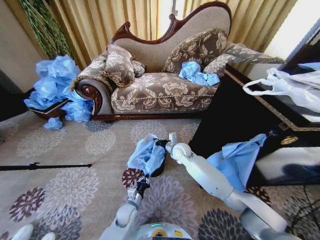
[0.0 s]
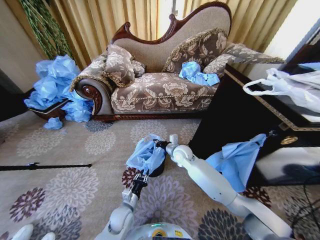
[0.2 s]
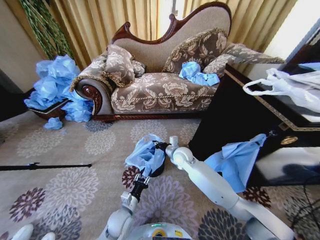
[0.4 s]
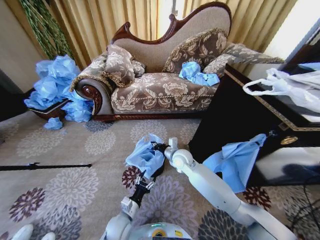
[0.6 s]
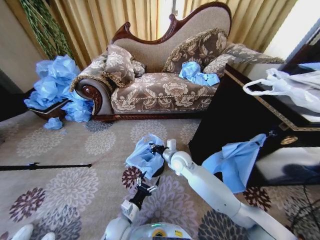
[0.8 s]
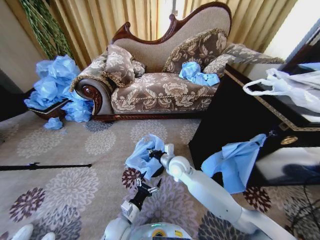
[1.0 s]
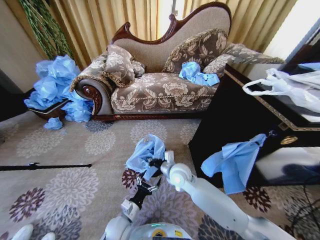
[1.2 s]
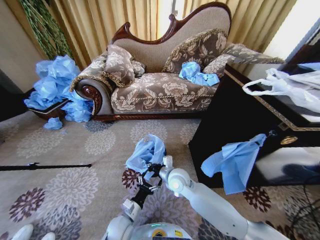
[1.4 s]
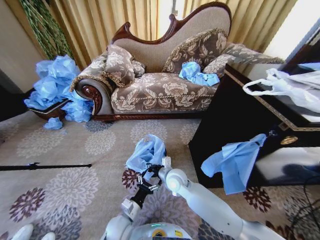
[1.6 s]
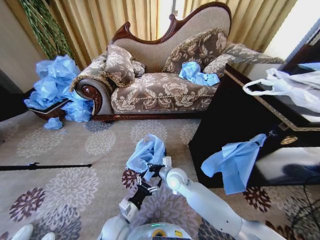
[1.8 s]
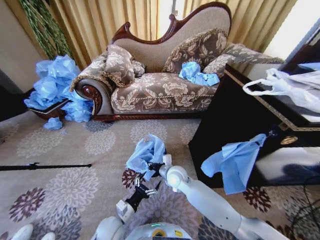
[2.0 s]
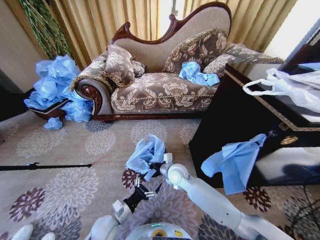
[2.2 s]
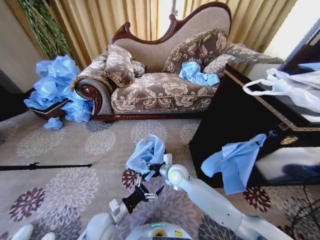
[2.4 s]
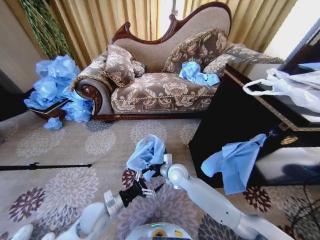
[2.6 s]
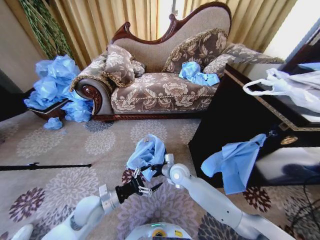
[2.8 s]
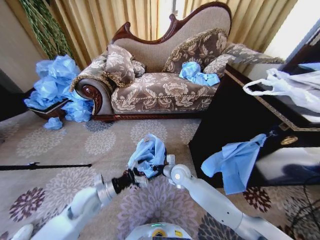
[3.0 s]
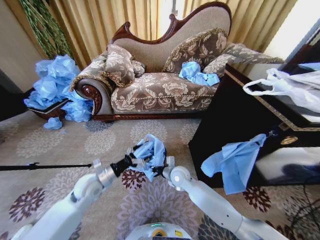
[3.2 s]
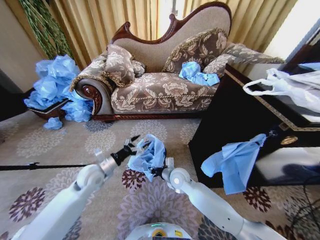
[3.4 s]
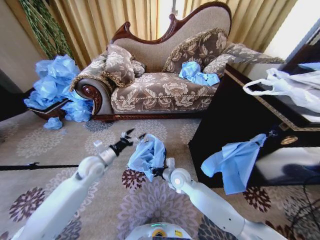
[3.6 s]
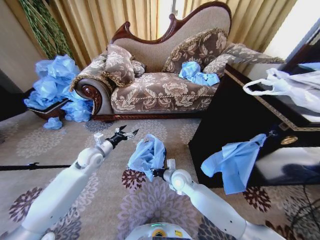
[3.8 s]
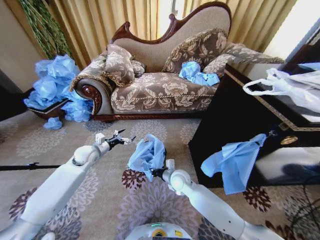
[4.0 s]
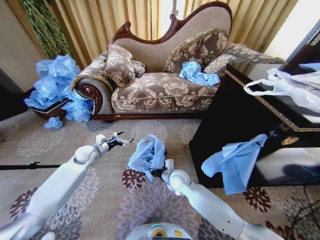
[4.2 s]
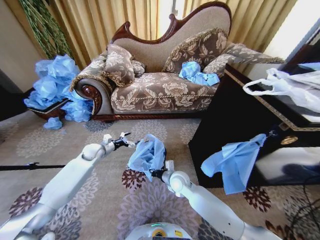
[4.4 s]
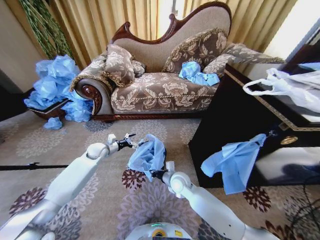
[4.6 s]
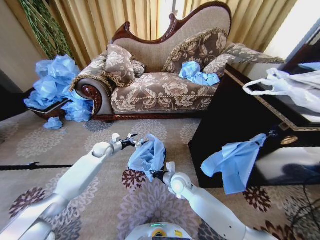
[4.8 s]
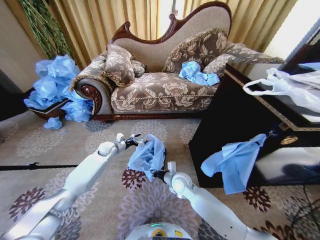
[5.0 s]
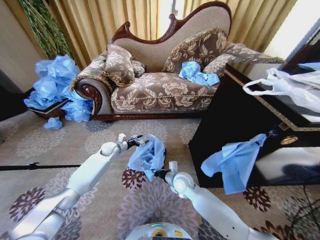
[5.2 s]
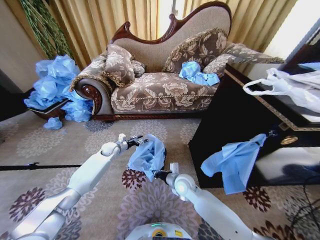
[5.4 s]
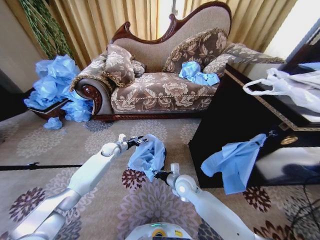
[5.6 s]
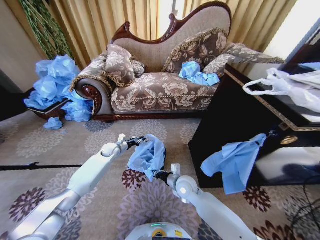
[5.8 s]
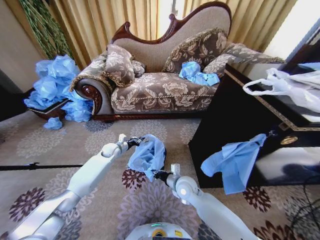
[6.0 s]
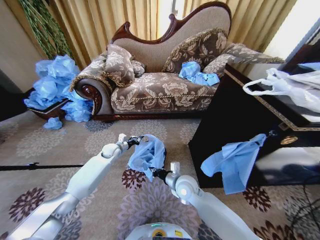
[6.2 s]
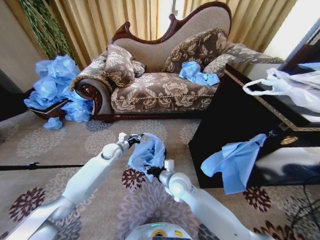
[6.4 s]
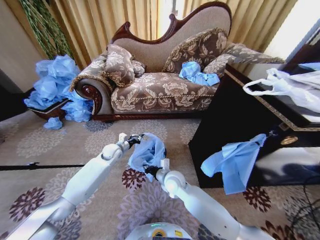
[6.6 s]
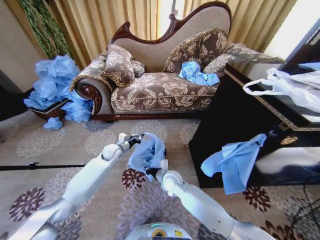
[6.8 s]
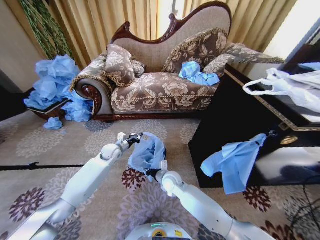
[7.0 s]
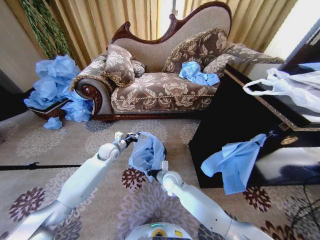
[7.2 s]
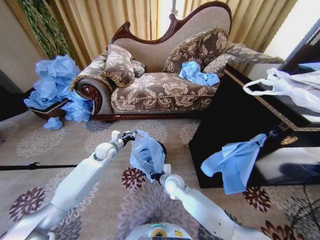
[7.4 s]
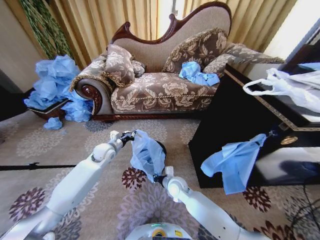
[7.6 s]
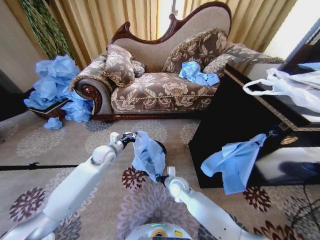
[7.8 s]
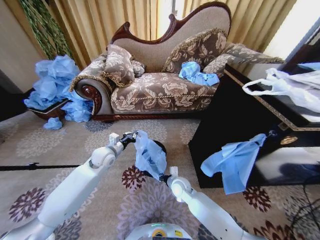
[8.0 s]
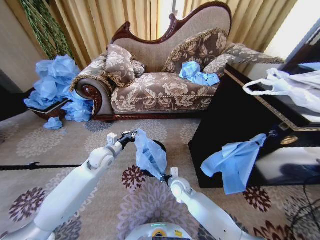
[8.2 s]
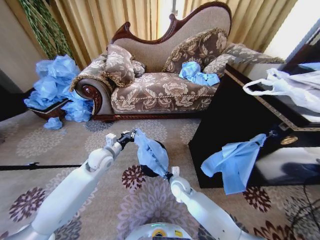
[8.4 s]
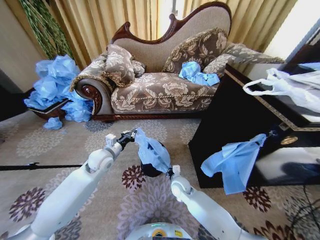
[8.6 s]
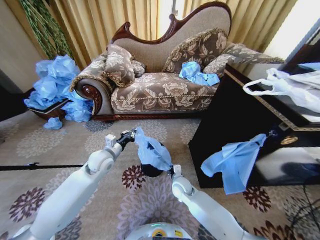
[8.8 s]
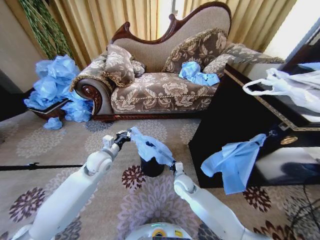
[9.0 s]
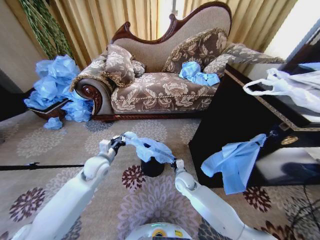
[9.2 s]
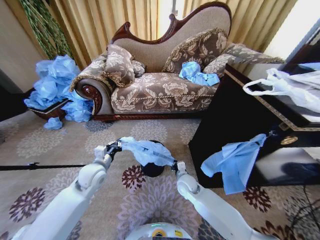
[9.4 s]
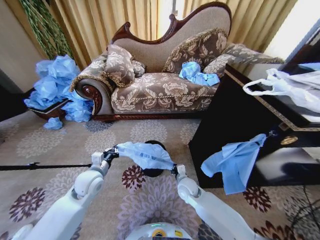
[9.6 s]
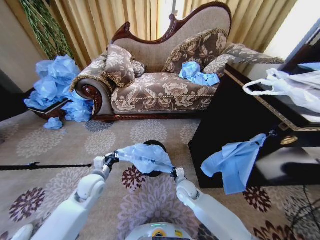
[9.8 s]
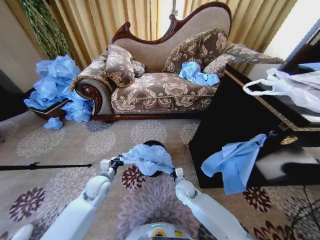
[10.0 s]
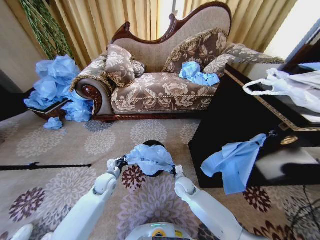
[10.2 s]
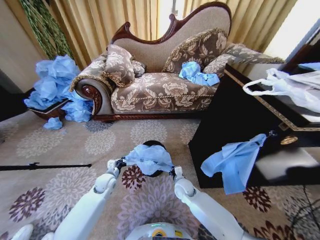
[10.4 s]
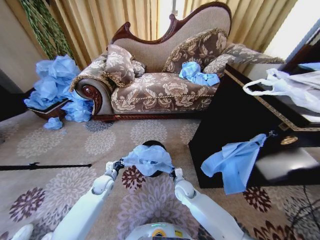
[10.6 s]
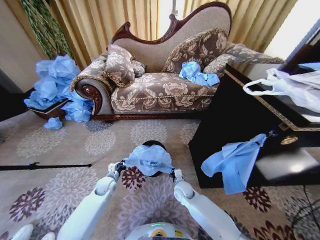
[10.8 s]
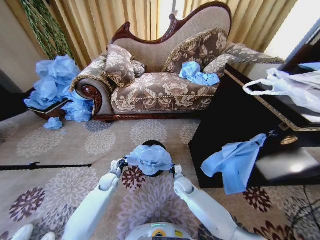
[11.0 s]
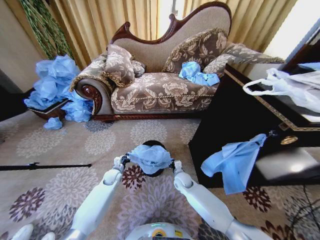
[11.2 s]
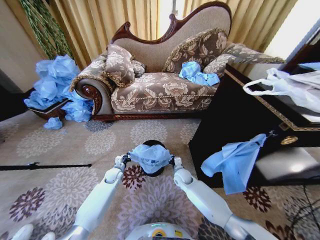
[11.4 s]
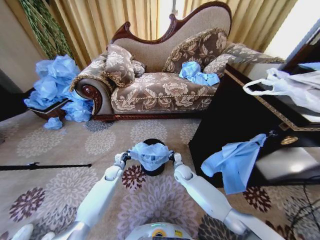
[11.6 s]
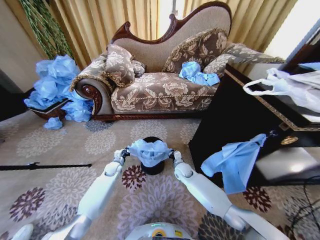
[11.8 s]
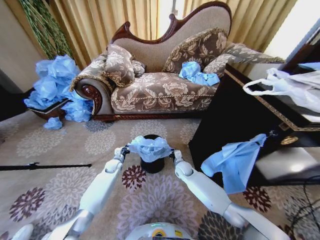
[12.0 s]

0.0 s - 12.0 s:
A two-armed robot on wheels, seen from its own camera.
Task of the whole recording: Place a garbage bag over the trash bin.
0.0 s - 1.6 s: The left gripper is displaced upward and backward by some 10 cm, and opens; the right gripper heads backward, covering some 15 cm.
1.6 s - 3.0 s: The left gripper goes approximately 15 cm upward, to the left and forward. The right gripper moves about 5 cm.
3.0 s - 4.4 s: The left gripper shifts about 20 cm forward.
4.4 s - 6.0 s: The left gripper moves to the right, about 5 cm, and closes up.
6.0 s - 7.6 s: The left gripper travels upward and backward by about 10 cm; the right gripper shifts some 5 cm downward.
7.6 s - 9.0 s: The left gripper shifts roughly 5 cm backward.
9.0 s - 10.4 s: The left gripper shifts about 15 cm downward.
10.4 s - 12.0 s: Both grippers move forward, about 10 cm.

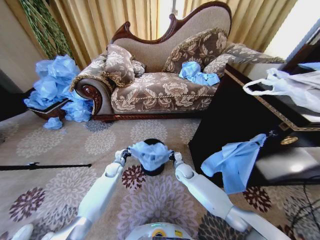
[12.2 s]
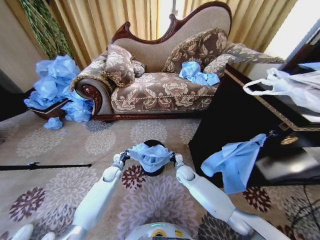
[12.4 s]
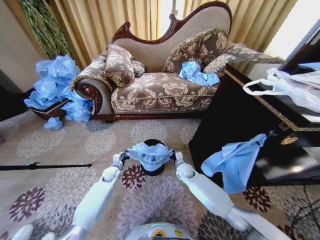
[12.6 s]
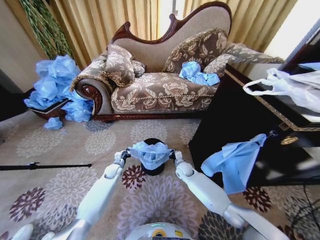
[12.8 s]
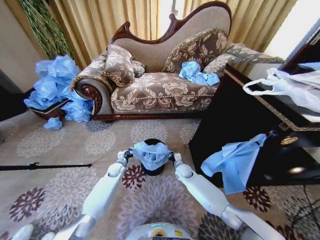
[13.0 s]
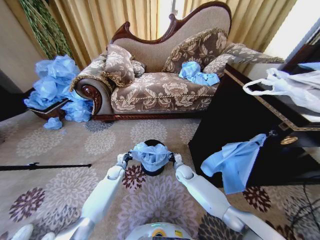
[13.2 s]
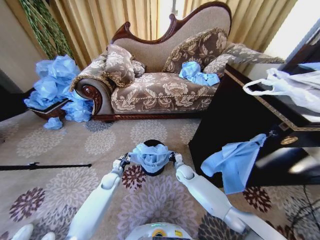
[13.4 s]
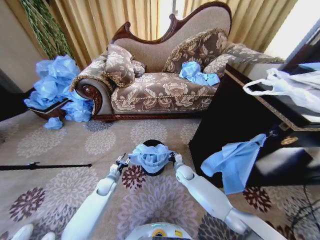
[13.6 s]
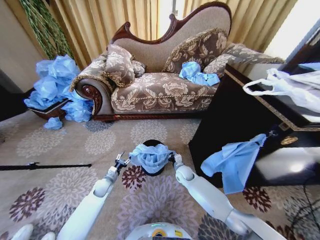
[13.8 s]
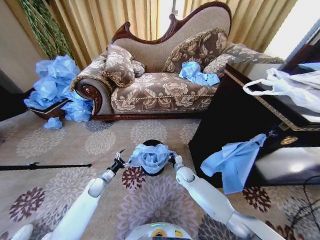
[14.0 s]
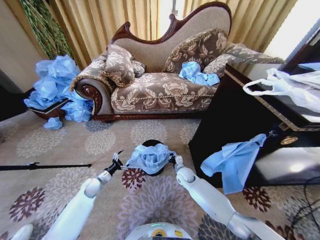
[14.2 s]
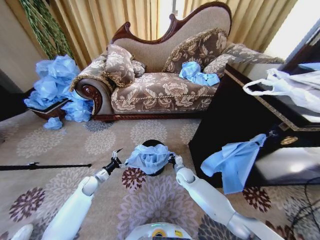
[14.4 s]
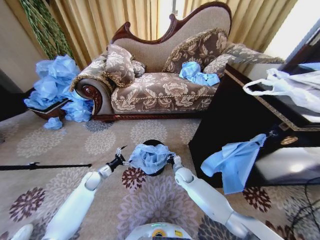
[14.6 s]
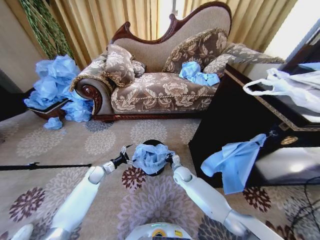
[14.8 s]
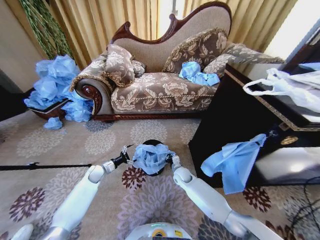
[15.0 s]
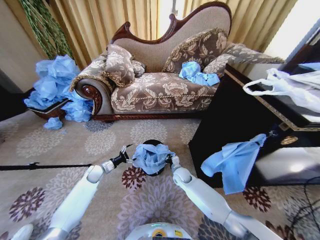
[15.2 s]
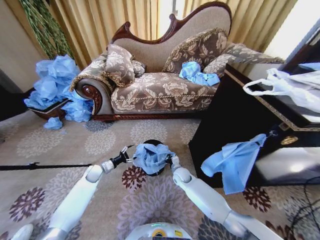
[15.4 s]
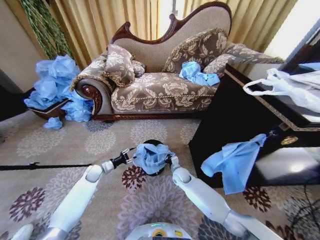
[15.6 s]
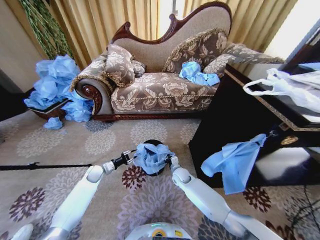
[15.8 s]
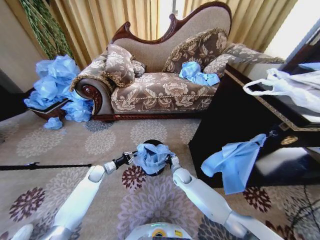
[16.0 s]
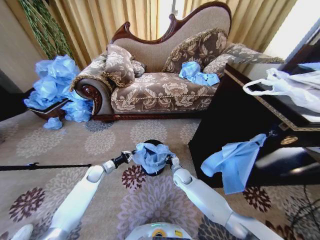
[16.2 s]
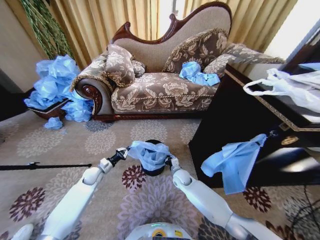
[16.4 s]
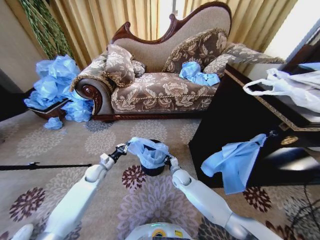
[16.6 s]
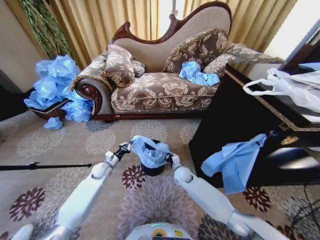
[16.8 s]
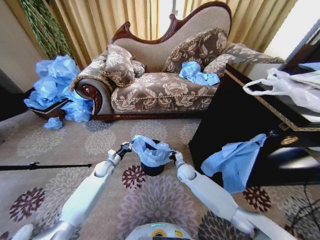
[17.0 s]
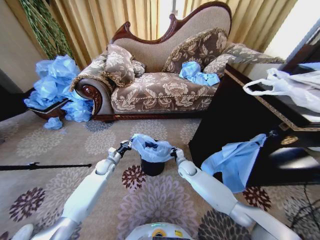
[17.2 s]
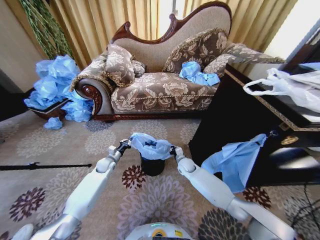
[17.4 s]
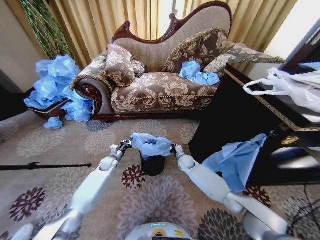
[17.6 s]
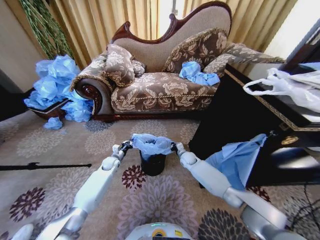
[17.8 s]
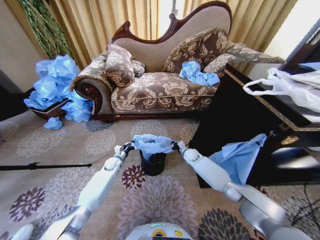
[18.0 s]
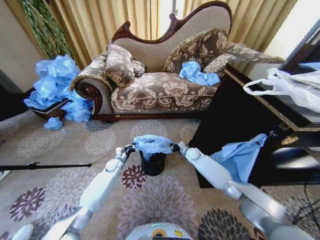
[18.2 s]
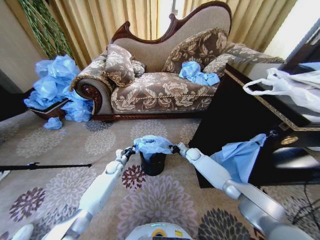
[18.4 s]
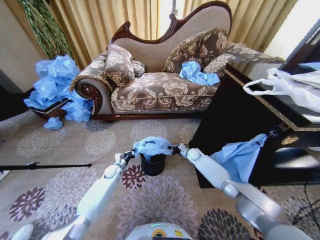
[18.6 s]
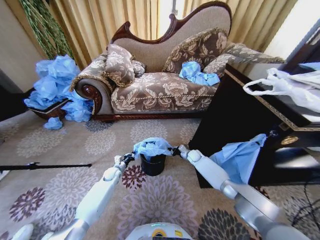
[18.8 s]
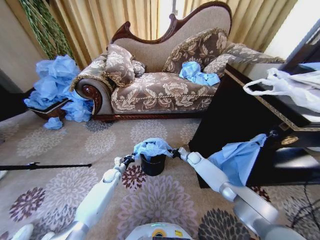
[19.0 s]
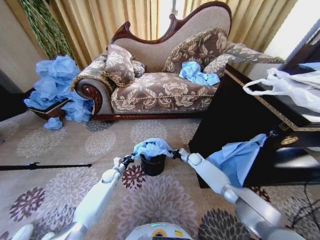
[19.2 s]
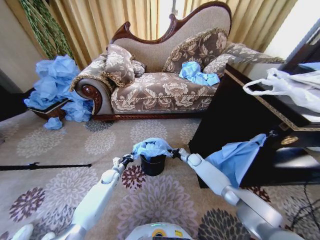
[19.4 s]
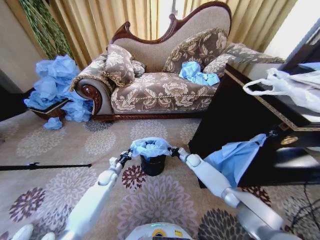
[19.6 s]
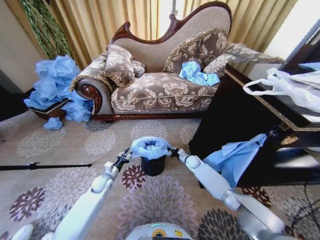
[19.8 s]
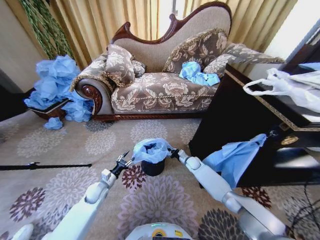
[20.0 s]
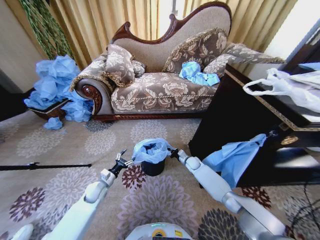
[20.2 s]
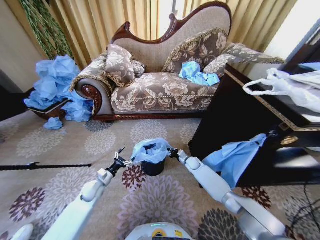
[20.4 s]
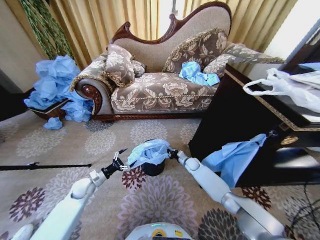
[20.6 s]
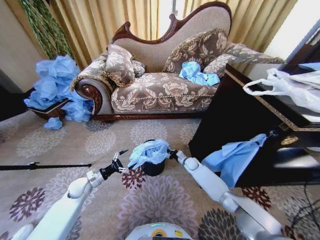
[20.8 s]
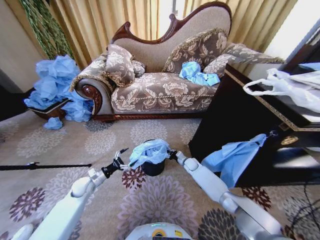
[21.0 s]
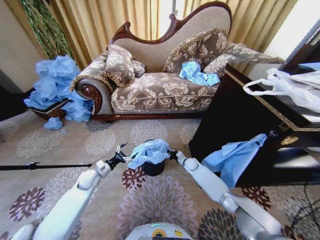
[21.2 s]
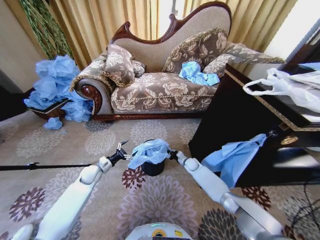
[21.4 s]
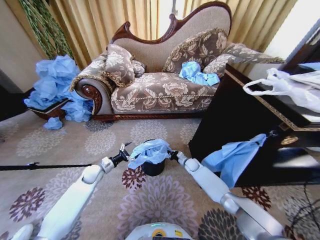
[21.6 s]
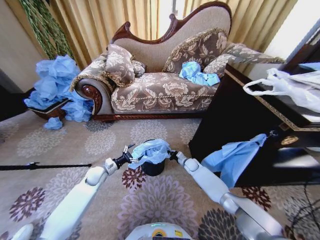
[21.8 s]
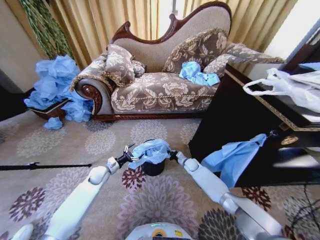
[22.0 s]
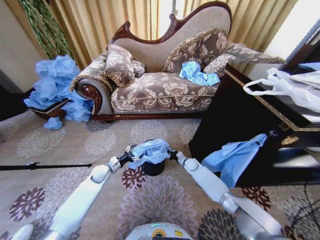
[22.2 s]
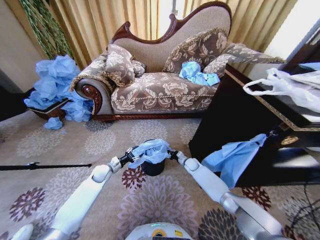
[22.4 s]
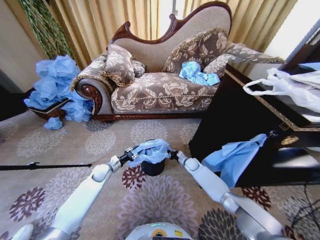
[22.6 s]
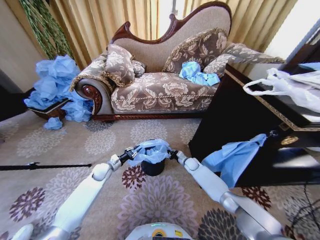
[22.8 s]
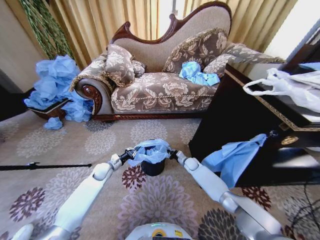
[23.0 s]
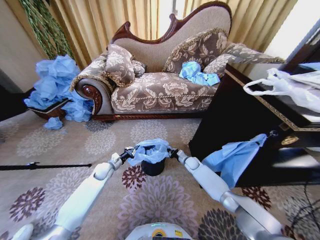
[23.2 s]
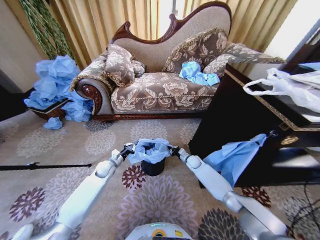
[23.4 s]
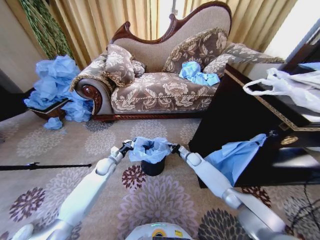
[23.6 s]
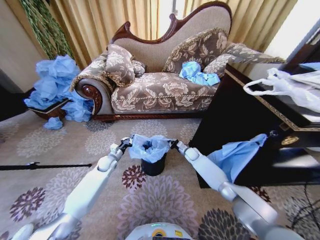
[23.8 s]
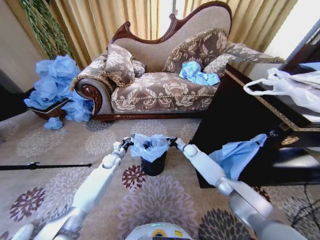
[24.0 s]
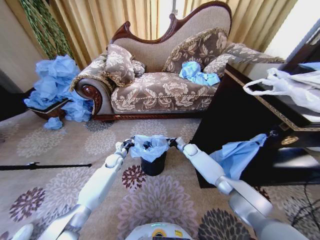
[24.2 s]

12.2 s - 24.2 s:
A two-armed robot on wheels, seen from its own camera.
Task of the whole recording: Place a garbage bag over the trash bin.
12.2 s - 13.8 s: The left gripper heads backward, covering approximately 10 cm, and opens up.
13.8 s - 15.2 s: The left gripper shifts some 10 cm forward and to the left, and opens its fingers.
15.2 s - 16.6 s: The left gripper closes its fingers.
16.6 s - 18.2 s: The left gripper travels forward and to the right by about 10 cm. Meanwhile the right gripper shifts approximately 15 cm forward and to the right.
18.2 s - 19.8 s: The right gripper ends up about 5 cm from where it was. The left gripper is displaced backward by approximately 10 cm.
19.8 s - 21.2 s: The left gripper moves upward, roughly 5 cm, and opens up.
21.2 s - 22.6 s: The left gripper changes place by about 5 cm, and closes up.
22.6 s - 24.2 s: The right gripper moves upward and forward, roughly 10 cm, while the left gripper heads forward, covering approximately 5 cm, and closes up.
